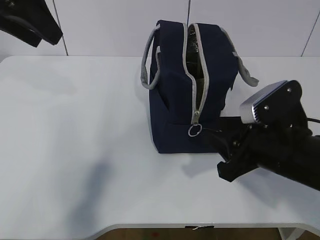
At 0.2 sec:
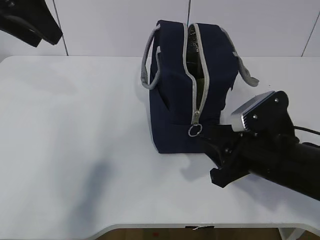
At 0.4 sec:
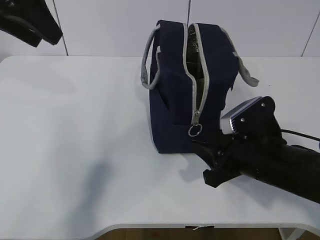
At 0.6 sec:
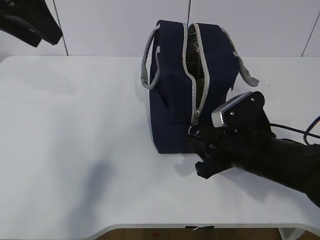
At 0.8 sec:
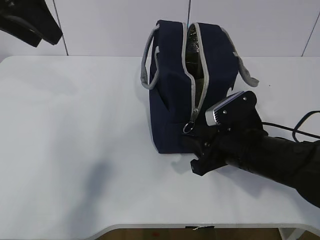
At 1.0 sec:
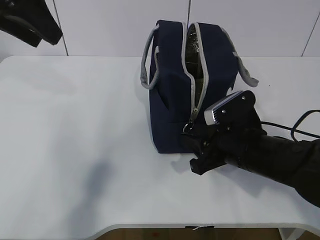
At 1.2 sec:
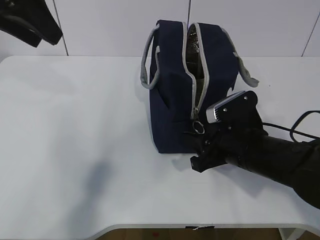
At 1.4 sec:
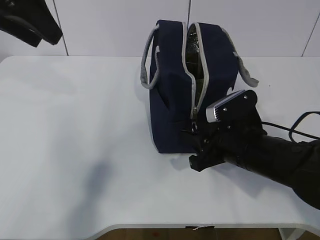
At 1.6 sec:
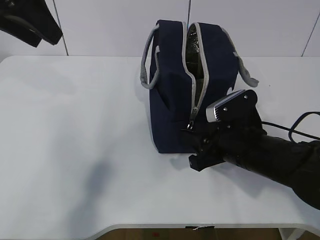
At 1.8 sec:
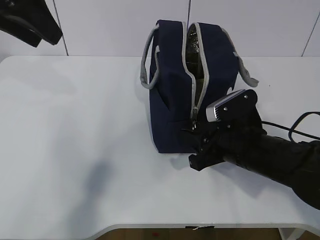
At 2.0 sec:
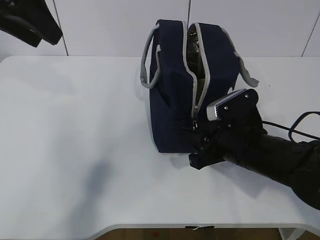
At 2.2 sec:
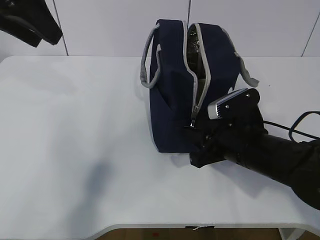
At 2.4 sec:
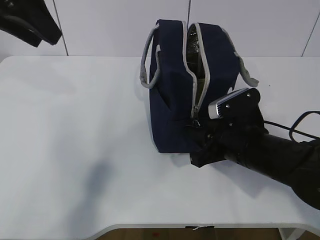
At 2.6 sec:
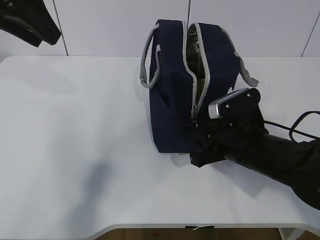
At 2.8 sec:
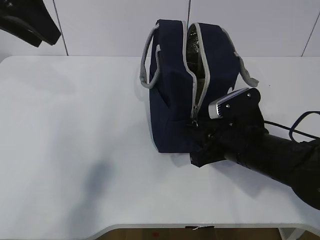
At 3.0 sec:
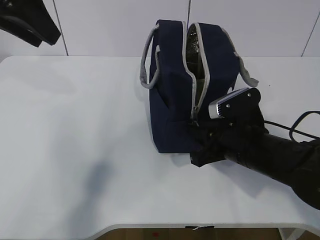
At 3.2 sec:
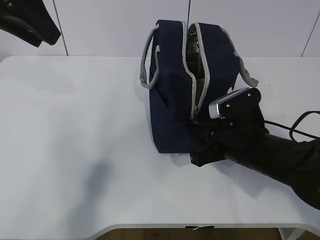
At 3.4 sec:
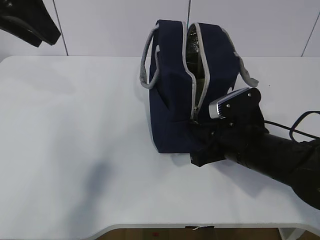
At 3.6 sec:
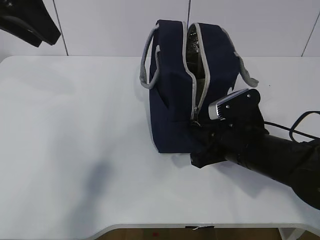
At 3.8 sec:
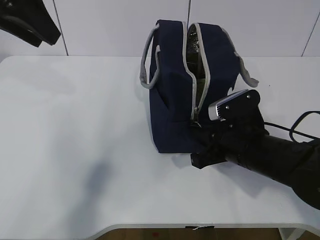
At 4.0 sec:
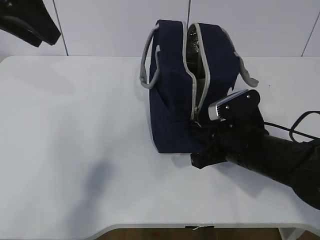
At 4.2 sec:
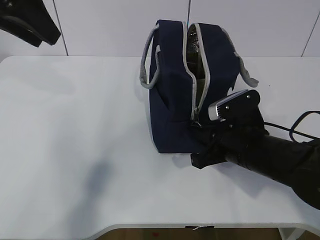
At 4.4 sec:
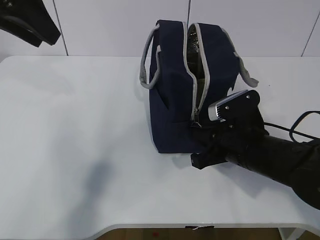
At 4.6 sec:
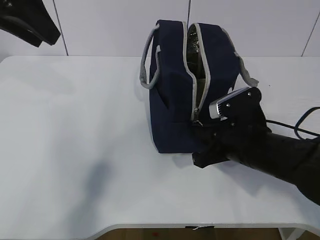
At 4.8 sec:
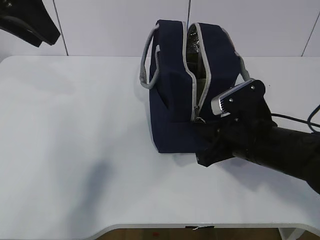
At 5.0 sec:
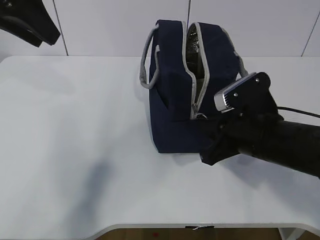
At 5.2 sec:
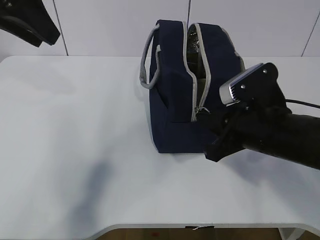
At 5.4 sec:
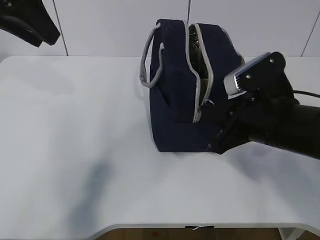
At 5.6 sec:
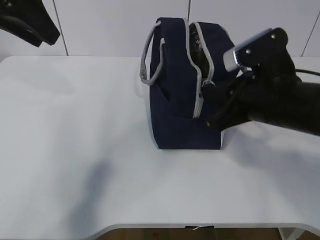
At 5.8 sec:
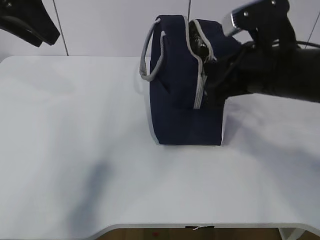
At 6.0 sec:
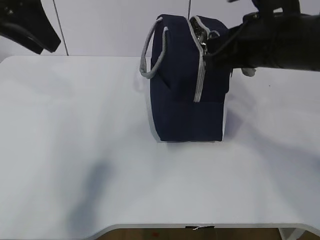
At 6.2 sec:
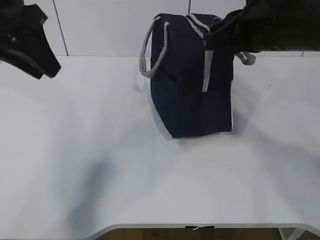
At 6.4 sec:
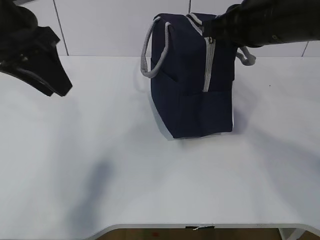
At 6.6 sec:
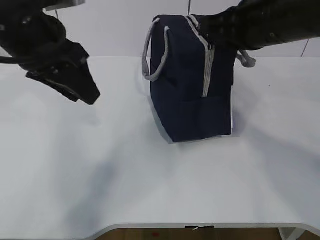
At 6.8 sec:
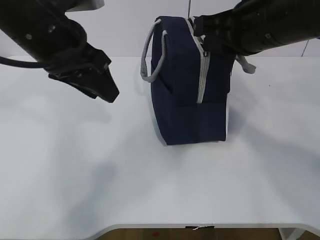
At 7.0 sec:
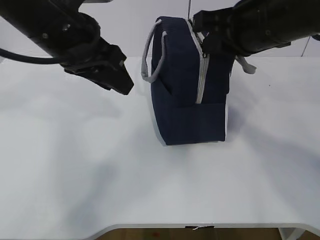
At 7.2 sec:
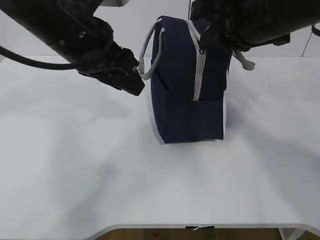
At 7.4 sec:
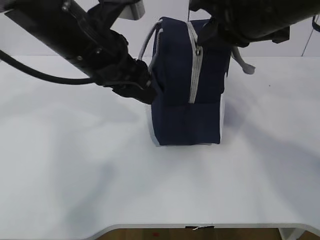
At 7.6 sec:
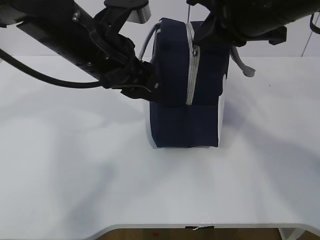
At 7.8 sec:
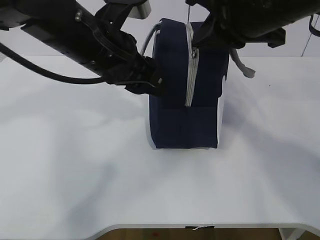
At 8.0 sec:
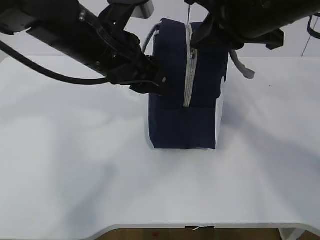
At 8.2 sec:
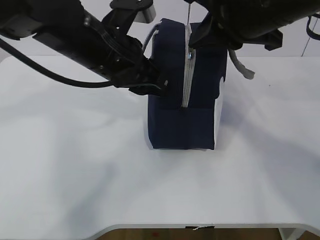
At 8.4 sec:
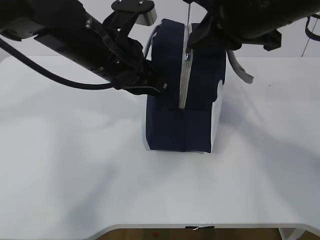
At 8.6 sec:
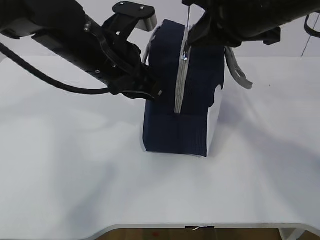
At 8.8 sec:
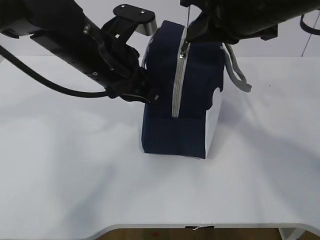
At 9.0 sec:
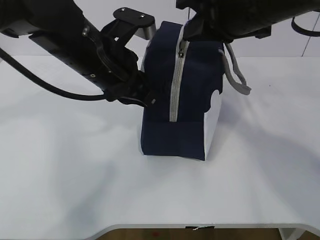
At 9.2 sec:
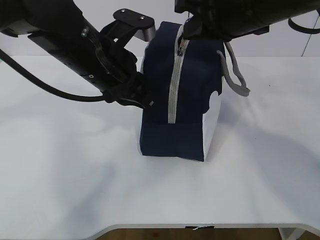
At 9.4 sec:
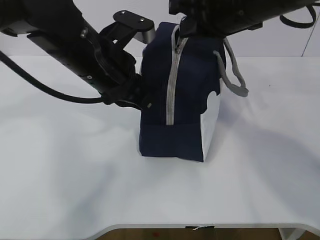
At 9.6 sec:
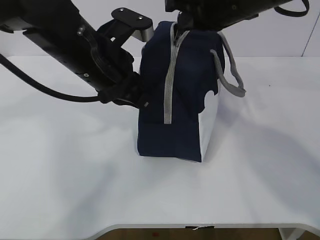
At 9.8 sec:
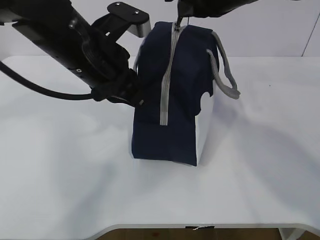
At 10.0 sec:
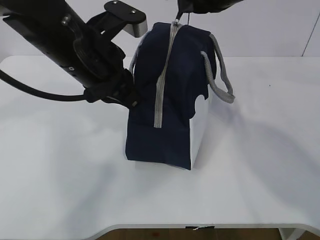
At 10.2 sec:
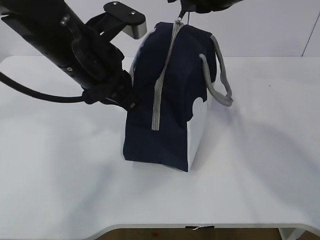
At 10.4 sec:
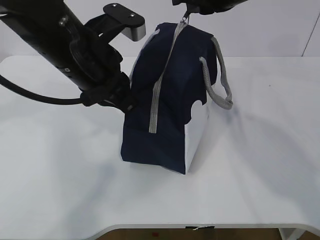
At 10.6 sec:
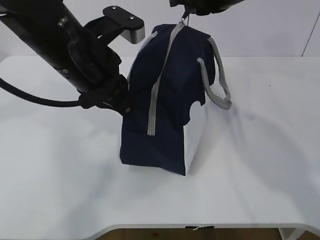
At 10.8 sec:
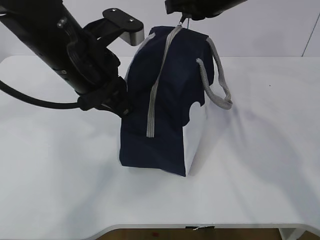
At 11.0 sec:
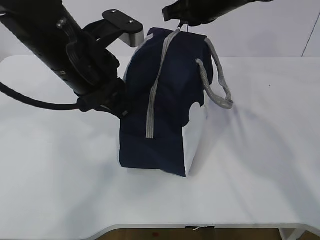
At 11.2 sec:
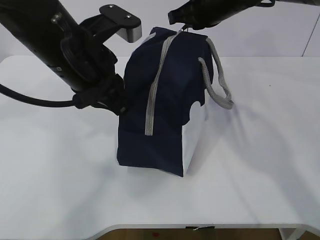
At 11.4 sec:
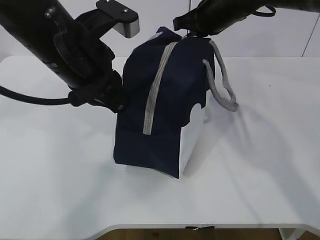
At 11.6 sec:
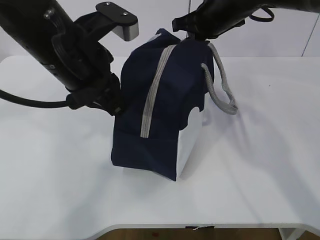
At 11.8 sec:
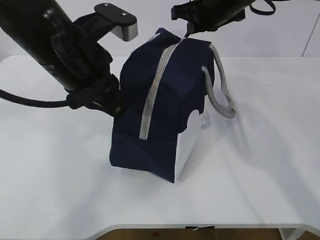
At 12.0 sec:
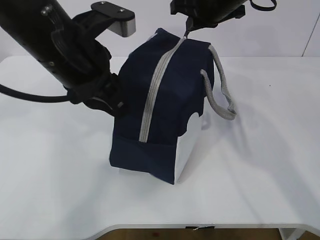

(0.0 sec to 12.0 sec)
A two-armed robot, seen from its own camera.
Step, 0.0 sec - 5.2 sec: Pull the zipper with your right hand.
0.0 sec - 1.6 sec: The right gripper moves downward, approximately 5 cm.
1.6 sec - 4.4 sec: Both grippers stay about where they are.
4.4 sec - 6.0 sec: The right gripper travels upward by some 15 cm.
6.0 sec - 7.6 sec: The left gripper is displaced to the right and downward by some 15 cm. Meanwhile the right gripper shifts about 5 cm upward.
7.6 sec - 9.0 sec: The left gripper closes up.
9.0 sec - 10.4 sec: The right gripper goes some 5 cm forward.
10.4 sec - 12.0 sec: The right gripper moves forward, about 10 cm.

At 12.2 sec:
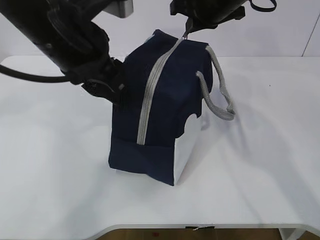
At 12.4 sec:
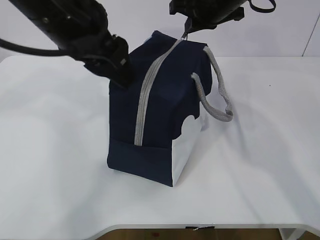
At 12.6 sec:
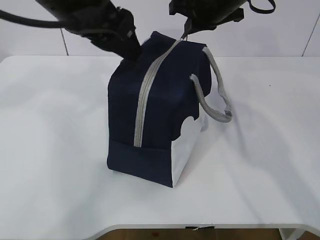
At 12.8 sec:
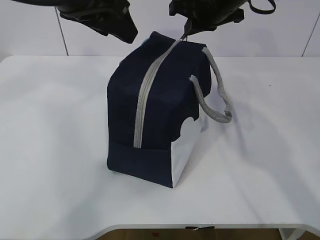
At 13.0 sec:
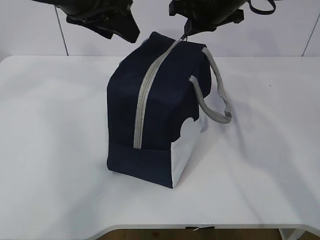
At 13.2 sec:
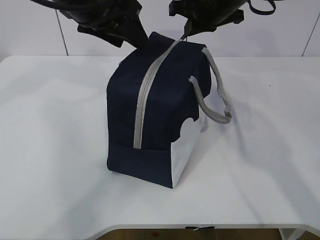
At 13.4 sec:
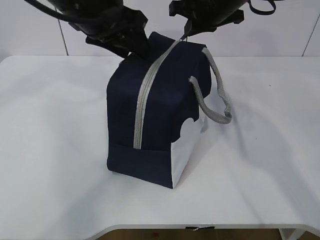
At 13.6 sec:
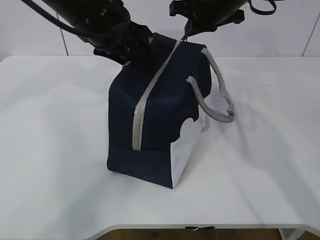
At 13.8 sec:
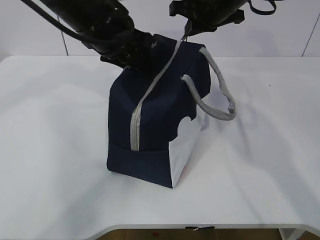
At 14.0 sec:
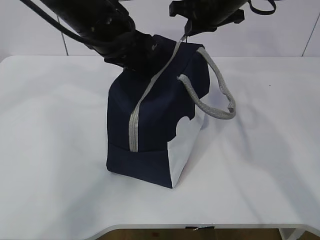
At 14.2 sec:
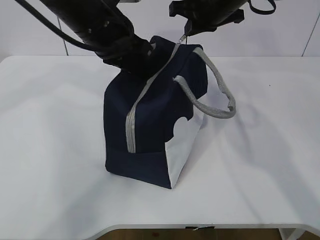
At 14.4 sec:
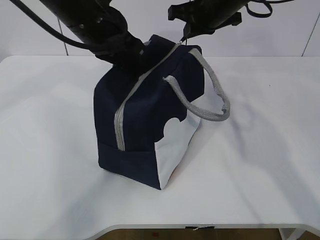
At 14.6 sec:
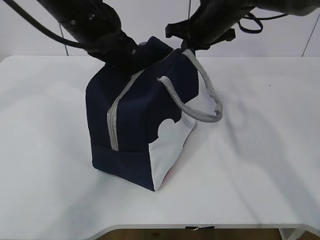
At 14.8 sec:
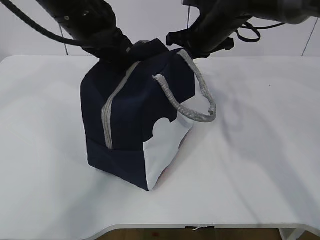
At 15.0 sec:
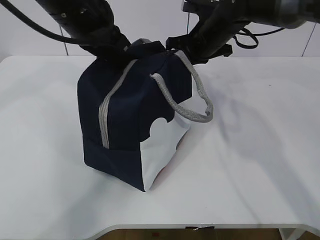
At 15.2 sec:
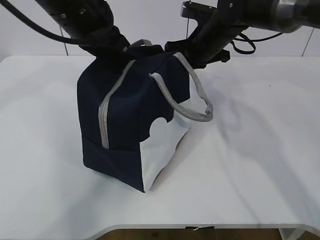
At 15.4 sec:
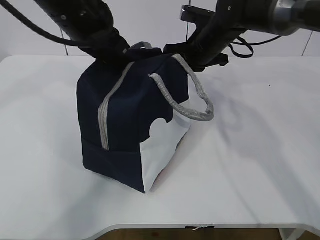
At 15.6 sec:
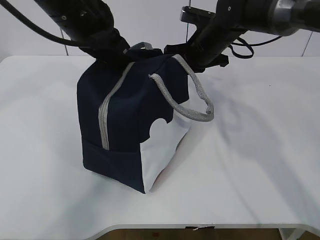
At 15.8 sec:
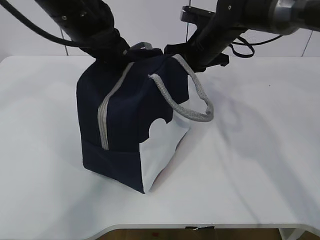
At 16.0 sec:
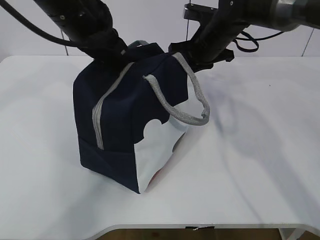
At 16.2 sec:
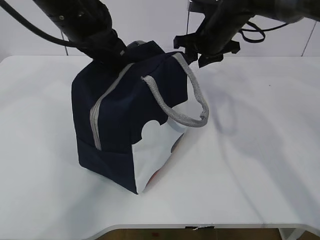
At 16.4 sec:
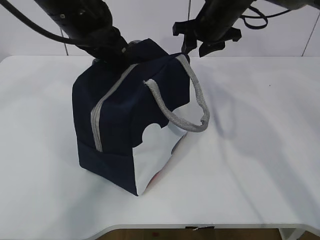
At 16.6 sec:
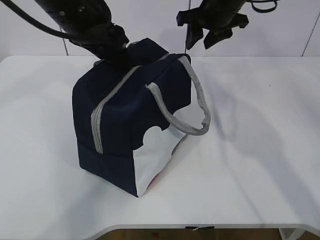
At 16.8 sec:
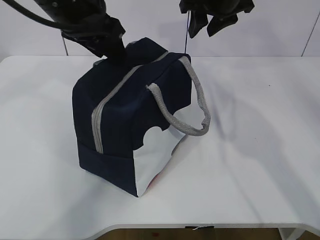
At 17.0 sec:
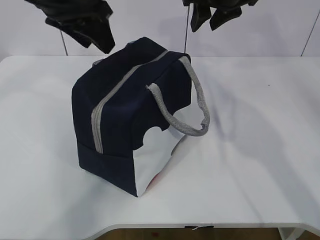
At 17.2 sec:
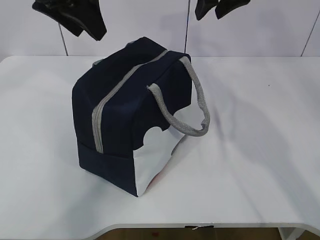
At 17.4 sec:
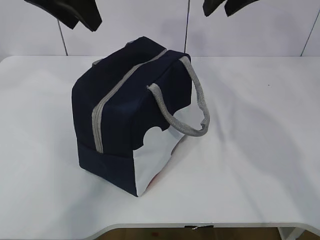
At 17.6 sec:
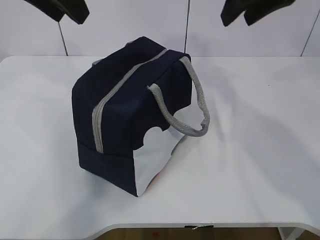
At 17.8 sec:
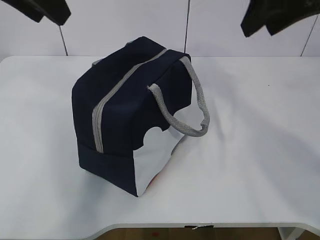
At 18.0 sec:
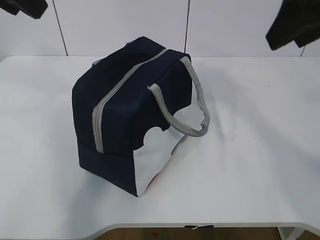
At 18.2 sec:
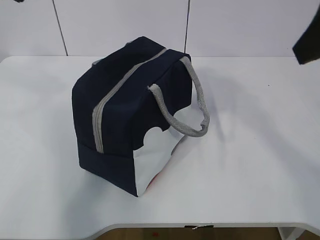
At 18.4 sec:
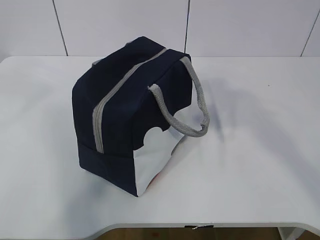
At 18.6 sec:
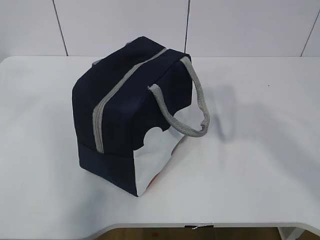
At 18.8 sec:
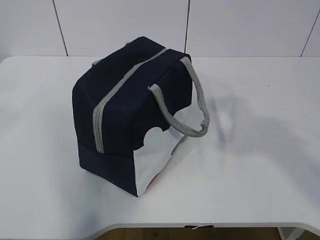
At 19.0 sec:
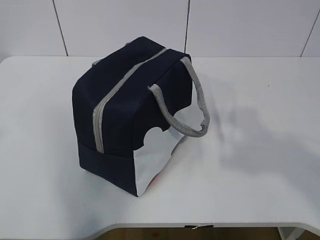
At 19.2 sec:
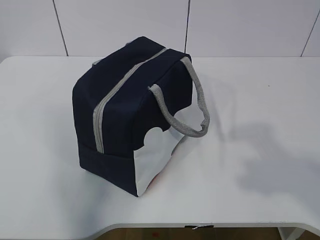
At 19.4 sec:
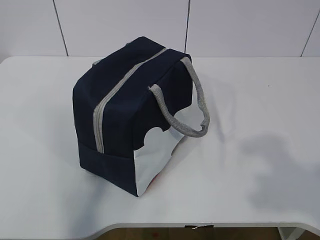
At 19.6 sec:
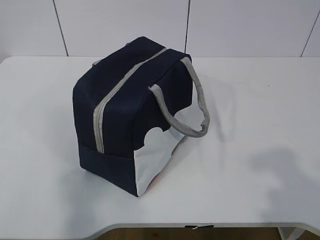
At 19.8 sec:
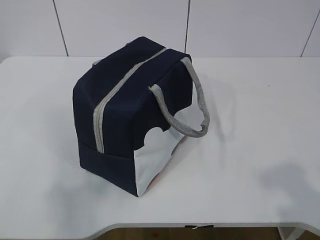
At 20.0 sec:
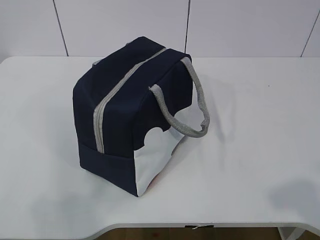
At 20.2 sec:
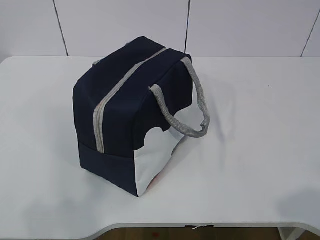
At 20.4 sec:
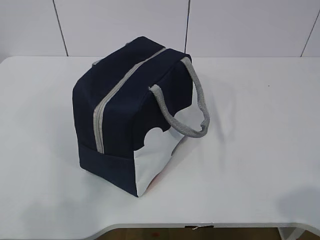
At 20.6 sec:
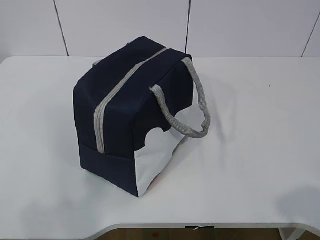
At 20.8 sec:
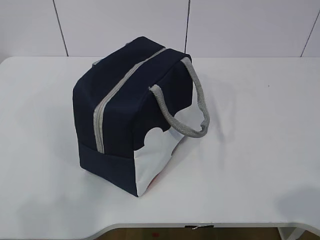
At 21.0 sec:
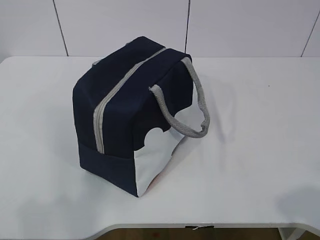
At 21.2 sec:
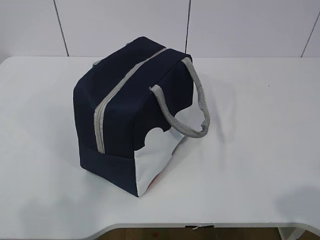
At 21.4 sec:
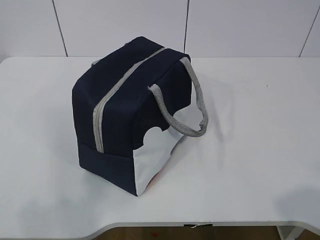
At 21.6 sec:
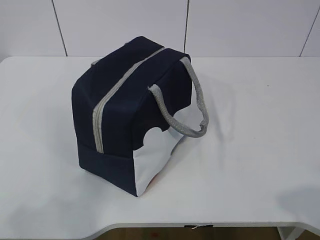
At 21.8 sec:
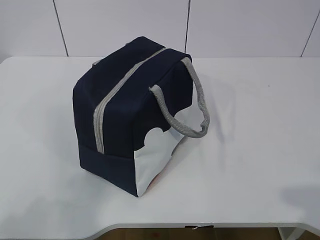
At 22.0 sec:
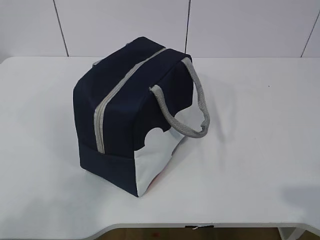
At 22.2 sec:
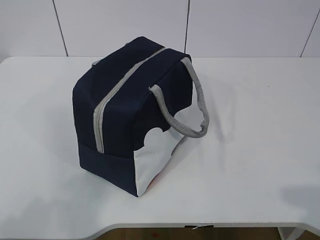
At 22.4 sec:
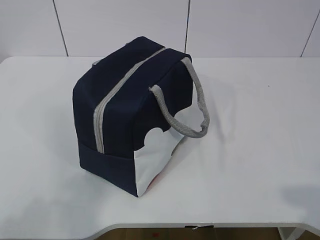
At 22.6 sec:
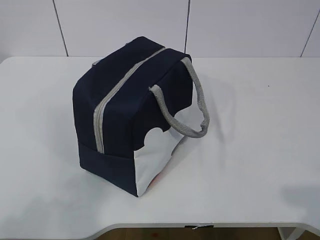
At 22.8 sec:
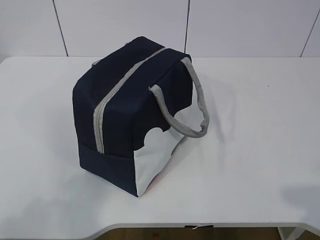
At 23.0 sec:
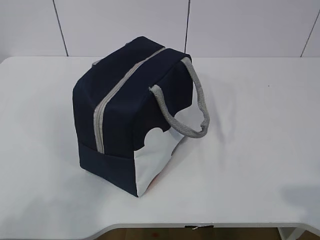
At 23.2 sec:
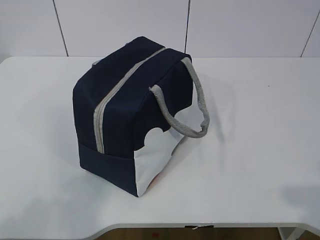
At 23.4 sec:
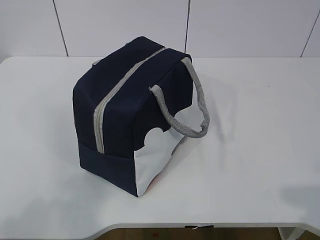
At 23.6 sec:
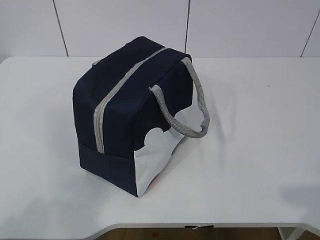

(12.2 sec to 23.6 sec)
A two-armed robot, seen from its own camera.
12.2 sec - 13.6 sec: The left gripper is displaced forward by roughly 10 cm.
13.6 sec - 15.0 sec: The left gripper closes its fingers. The right gripper moves downward, roughly 5 cm.
15.0 sec - 16.4 sec: The right gripper opens its fingers.
16.4 sec - 17.8 sec: The right gripper is displaced backward and upward by some 25 cm. Meanwhile the left gripper is displaced upward, backward and to the left by approximately 15 cm, and opens.
17.8 sec - 19.4 sec: The right gripper goes roughly 30 cm backward. Meanwhile the left gripper shifts roughly 25 cm backward and to the left.
19.4 sec - 20.8 sec: The left gripper is displaced downward by roughly 10 cm.
22.2 sec - 23.6 sec: Both grippers stay about where they are.
